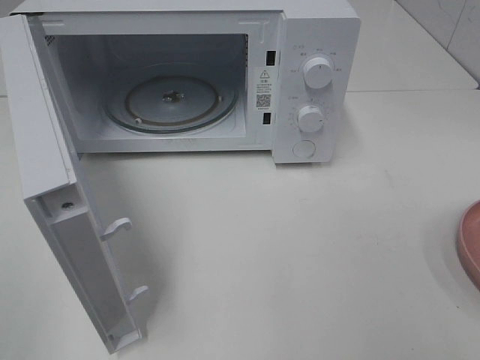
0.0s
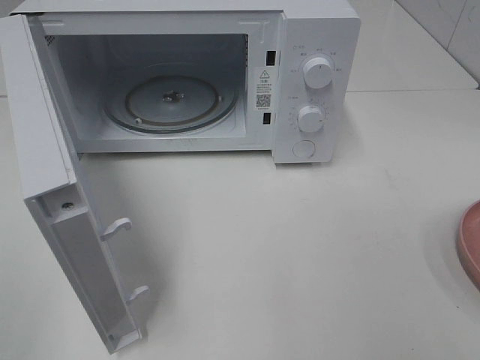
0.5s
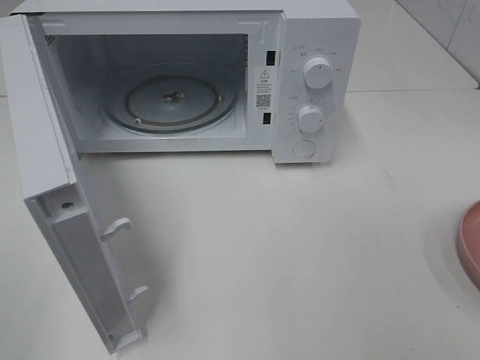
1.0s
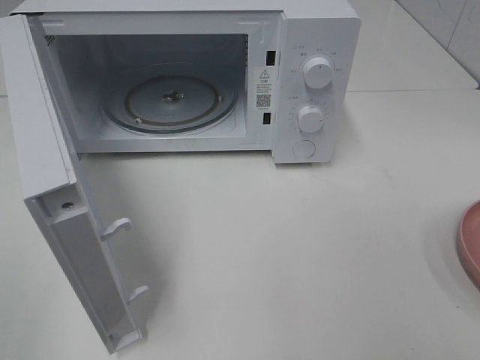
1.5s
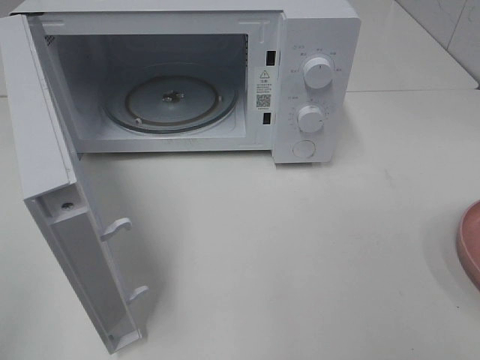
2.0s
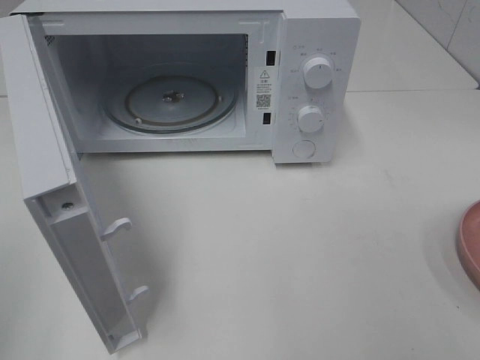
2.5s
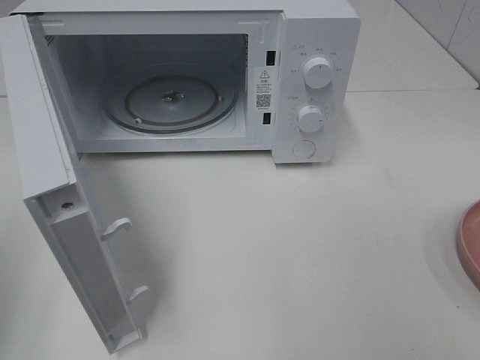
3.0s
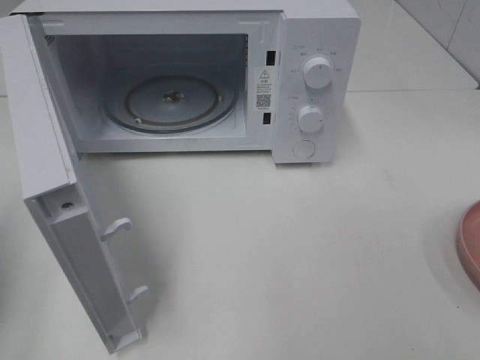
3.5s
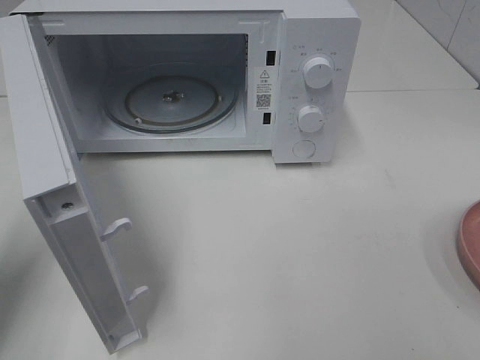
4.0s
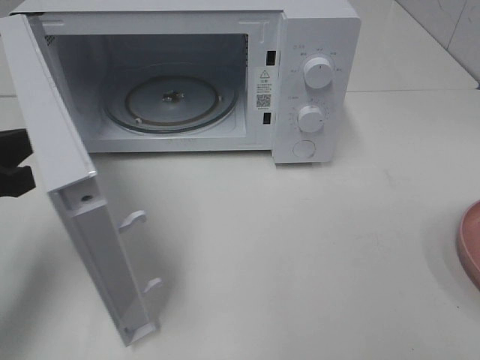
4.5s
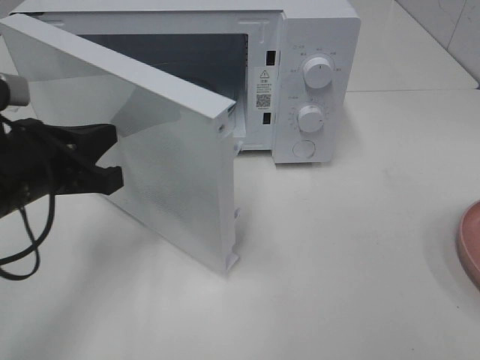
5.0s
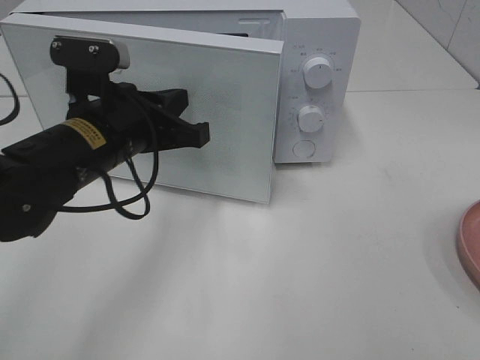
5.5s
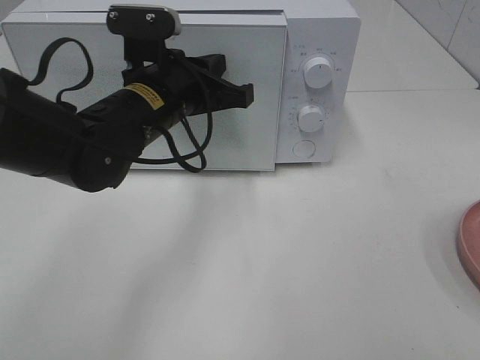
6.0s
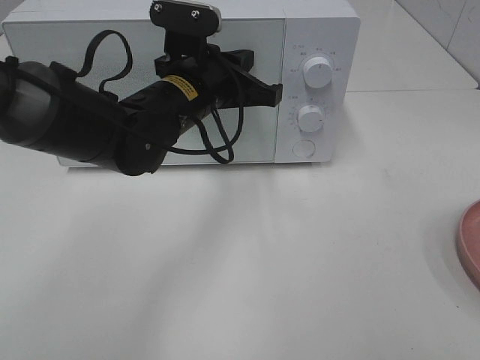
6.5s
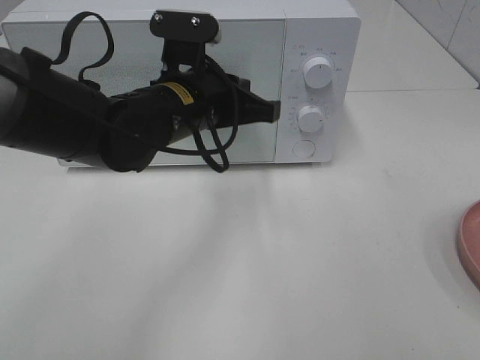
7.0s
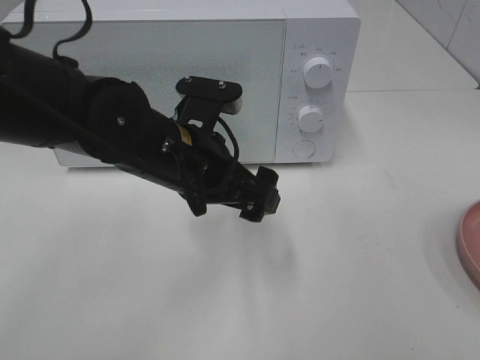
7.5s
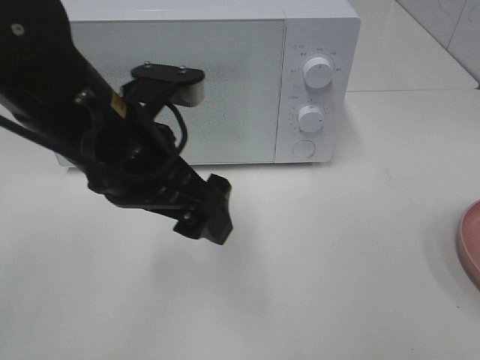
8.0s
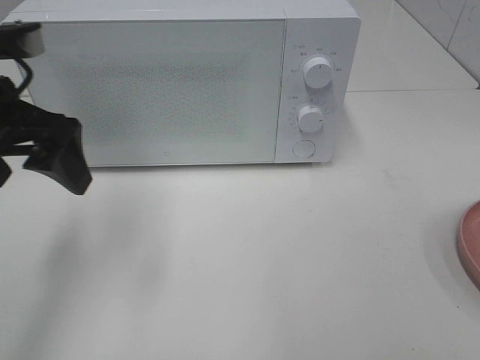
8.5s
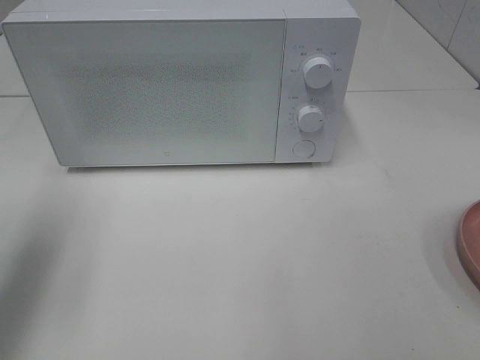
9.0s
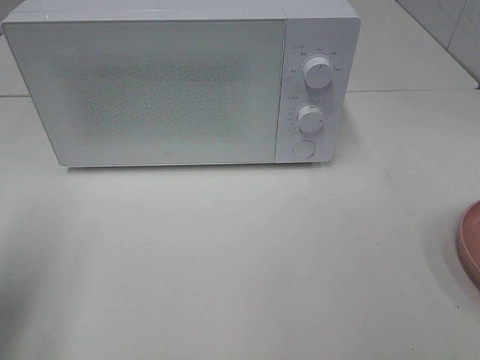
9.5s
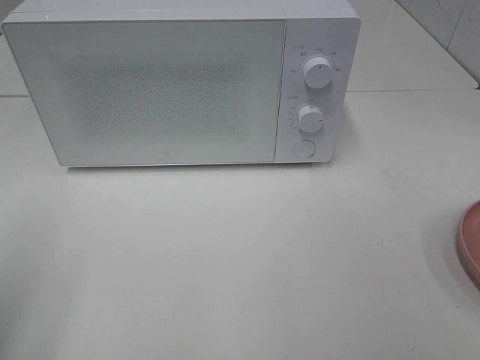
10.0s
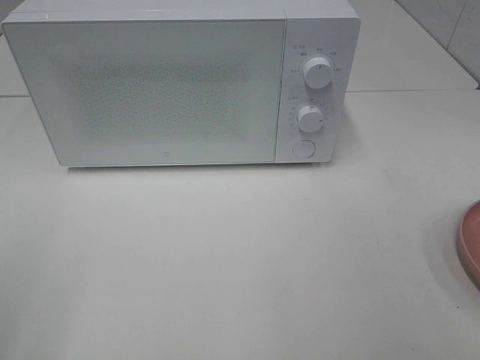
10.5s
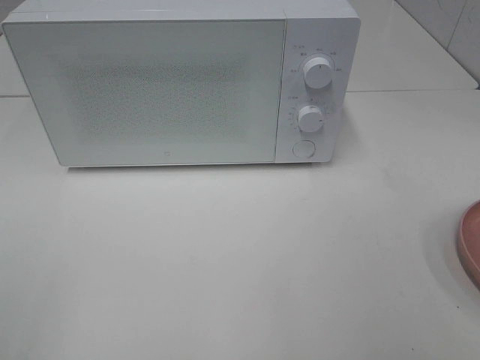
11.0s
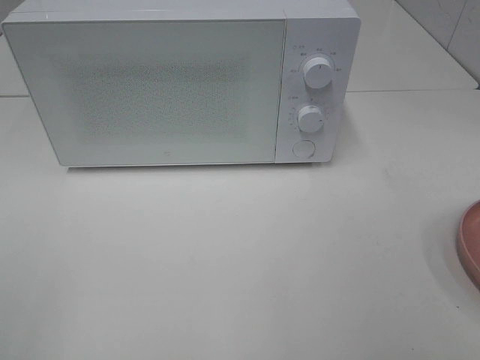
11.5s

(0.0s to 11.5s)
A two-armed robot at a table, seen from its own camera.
Task of the whole recording: Heat the burger.
Step, 0.0s - 6.5s: Left hand: close the microwave door.
0.0s - 2.0s: The two grippers keep their place.
2.0s - 4.0s: The left gripper goes about 20 cm forward and downward, and closes.
4.0s - 6.0s: The left gripper moves to the right and forward, some 25 cm.
6.0s - 7.5s: The left gripper shifts about 5 cm backward, and opens.
7.5s - 9.5s: The left gripper moves to the left and backward, some 30 cm.
9.5s - 11.5s: The left gripper moves backward, some 15 cm.

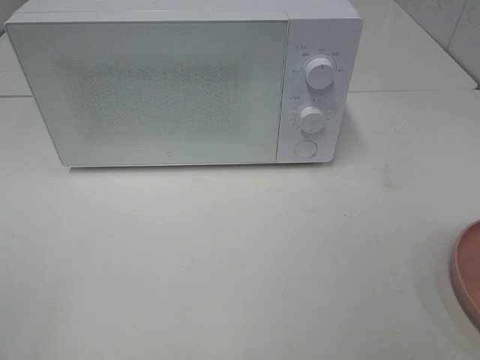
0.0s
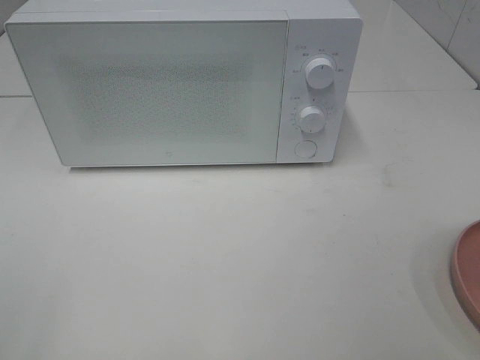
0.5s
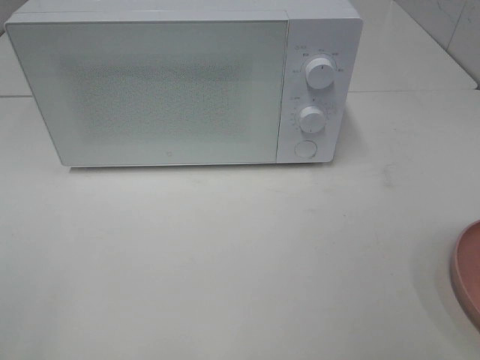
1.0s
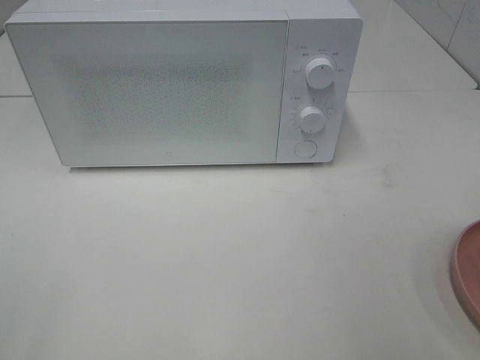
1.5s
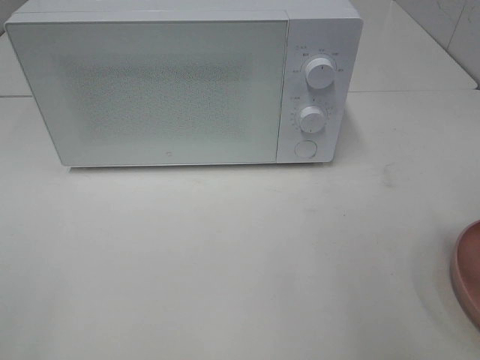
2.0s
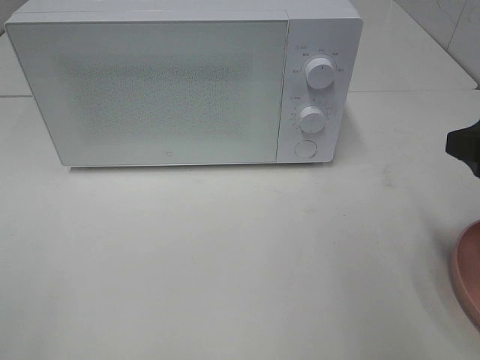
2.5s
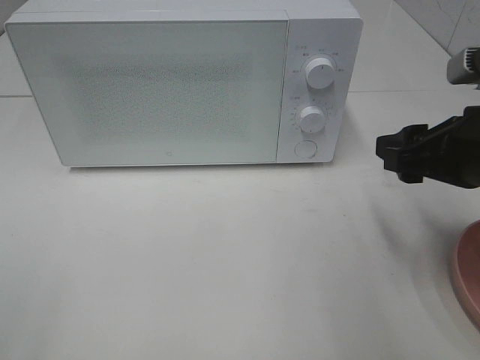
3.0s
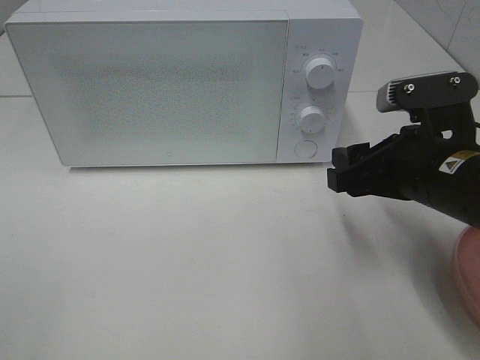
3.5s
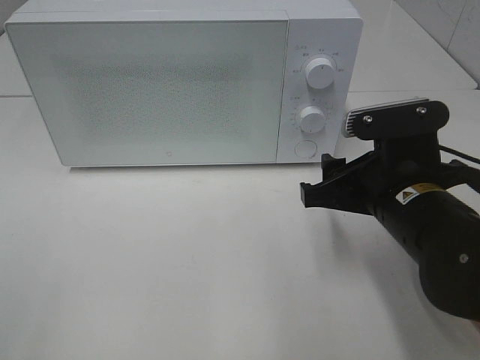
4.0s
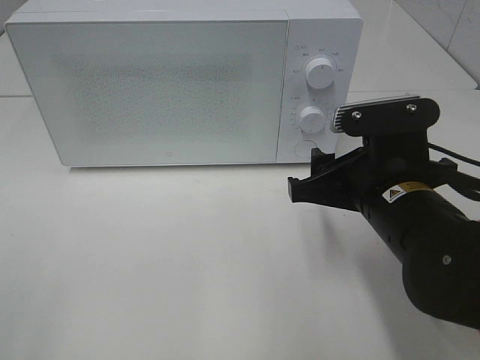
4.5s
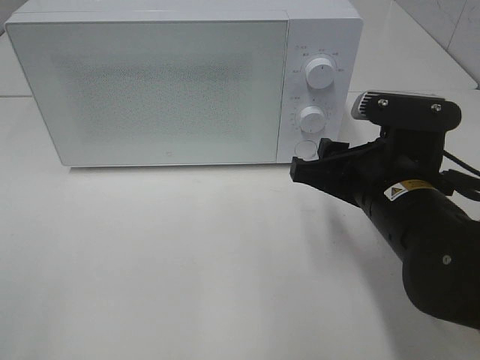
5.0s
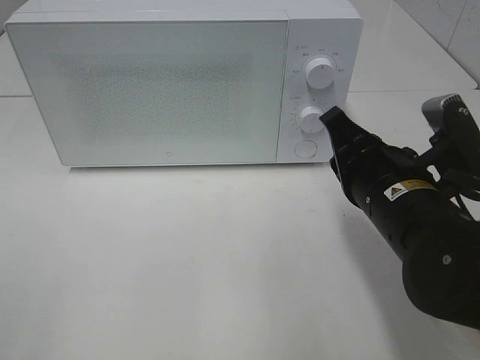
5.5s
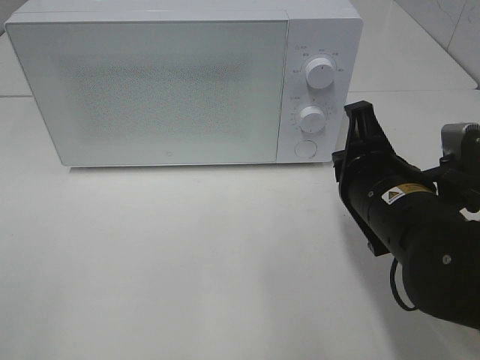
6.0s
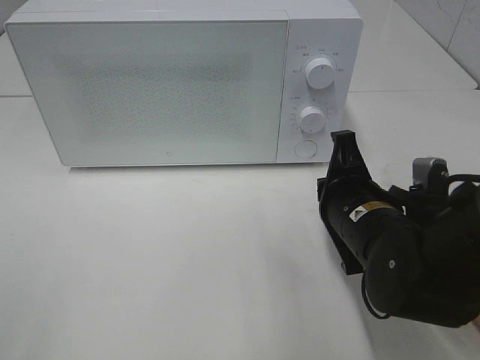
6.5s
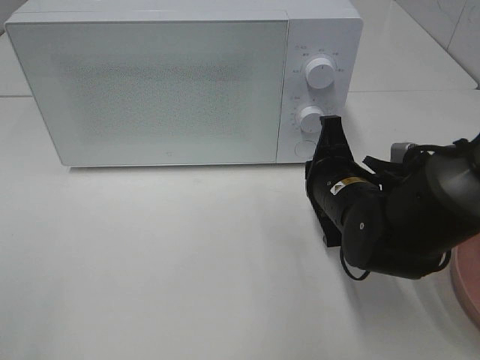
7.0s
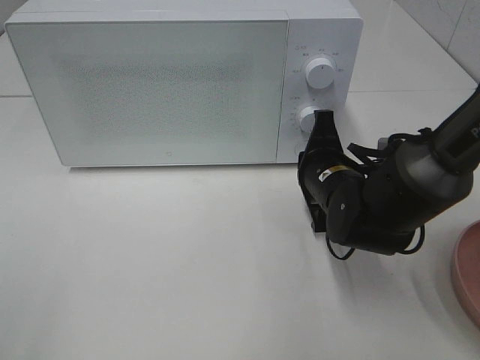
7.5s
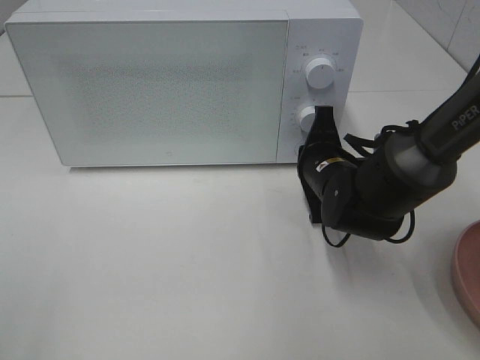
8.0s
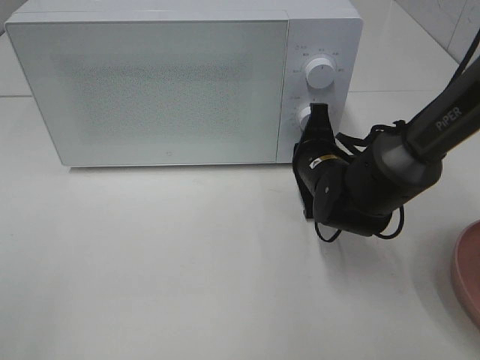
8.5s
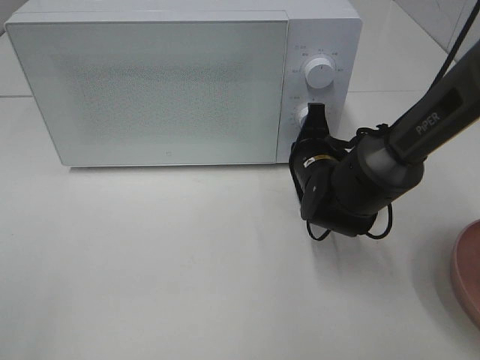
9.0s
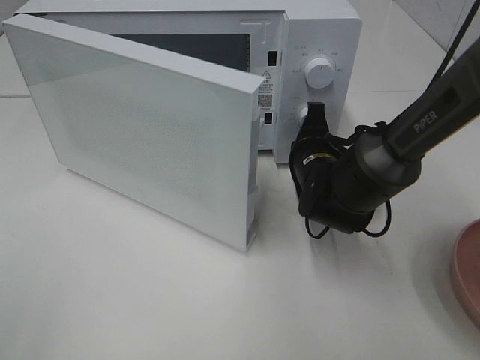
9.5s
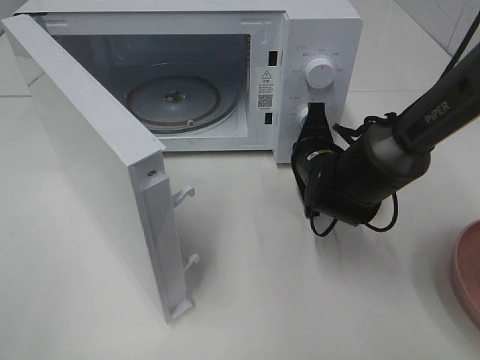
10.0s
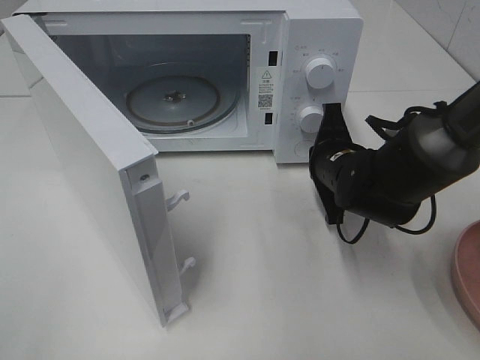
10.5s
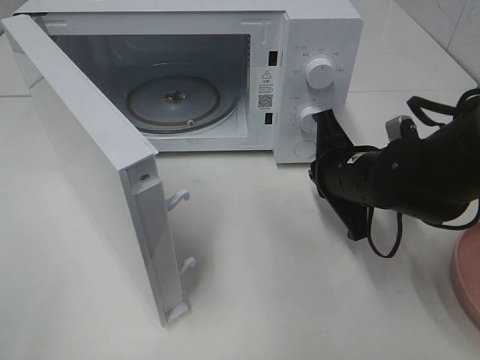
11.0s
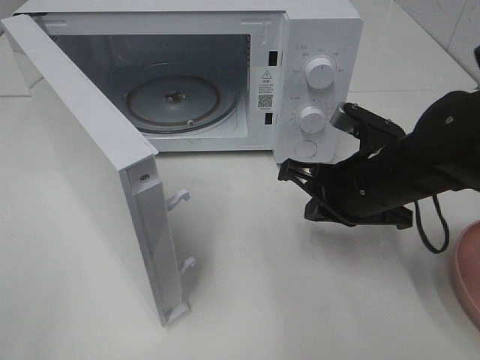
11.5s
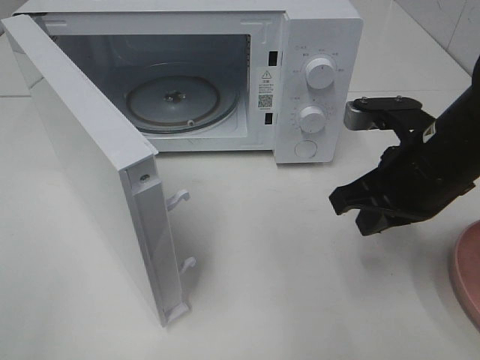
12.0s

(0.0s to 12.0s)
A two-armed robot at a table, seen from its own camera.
Task of the whole recording: Heat the burger.
Step, 0.0s - 10.0s: Right hand: press the switch.
2.0s - 4.0s: The right gripper heads to the left, downward and forward, covering some 20 cm.
4.0s - 6.0s: The right gripper closes up.
6.0s - 8.0s: The right gripper moves forward and downward, some 15 cm.
10.0s - 12.0s: The right gripper heads upward, backward and to the right, covering about 15 cm.

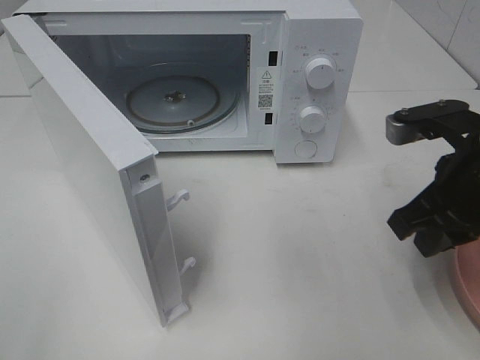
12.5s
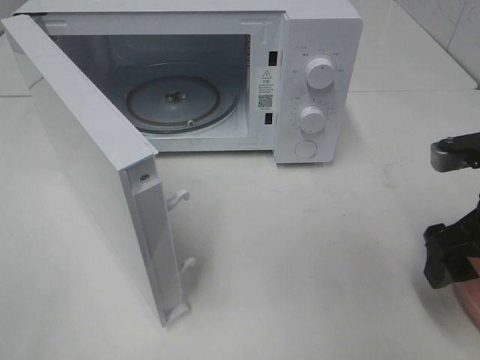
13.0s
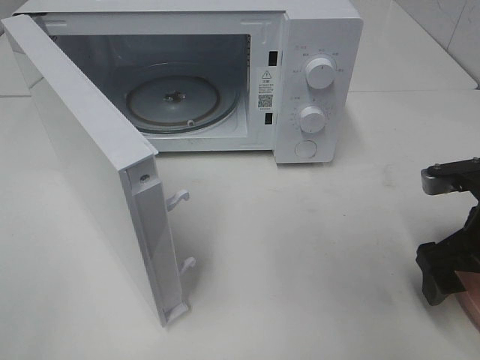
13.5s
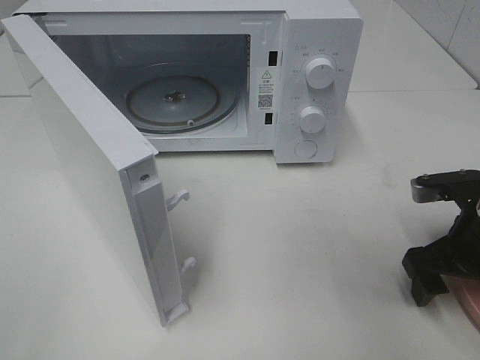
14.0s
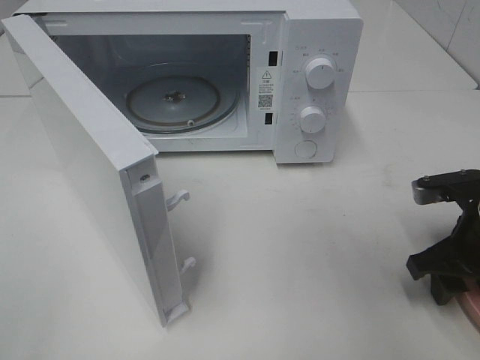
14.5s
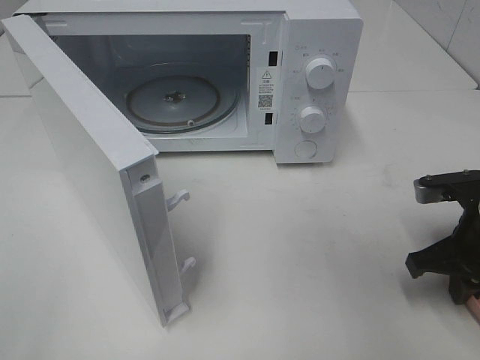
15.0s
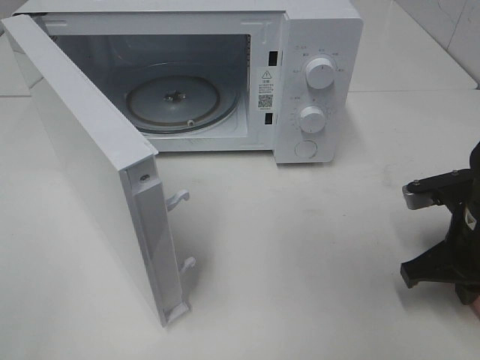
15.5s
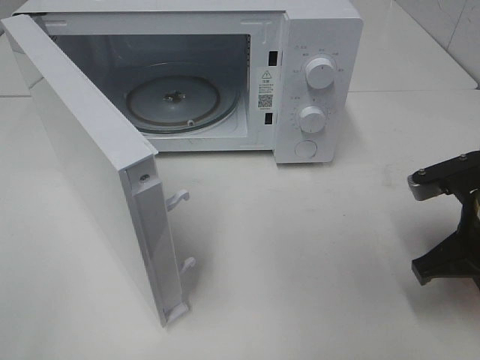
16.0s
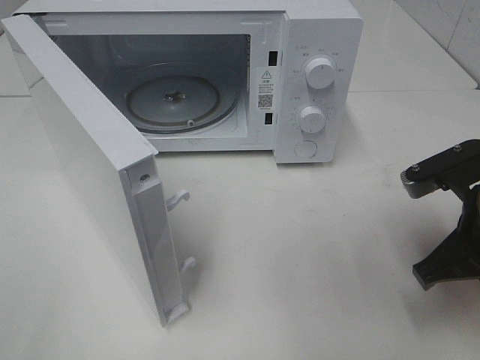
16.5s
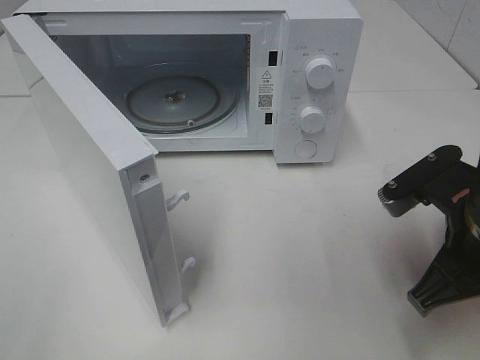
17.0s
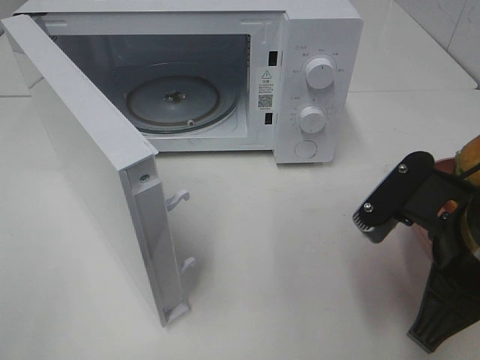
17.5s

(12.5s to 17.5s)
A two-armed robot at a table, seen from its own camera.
Task of the whole recording: Heat the burger.
Step, 12.5s - 14.5s: Right hand: grab the plate with the hamburger.
12.5s - 15.0s: The right gripper shifts approximately 10 cm downward, and opens, then closes once more.
15.0s - 17.5s: The right gripper heads to the left, backward and upward, covering approximately 15 cm.
